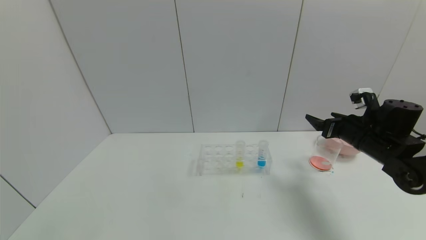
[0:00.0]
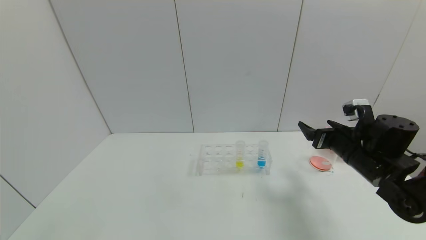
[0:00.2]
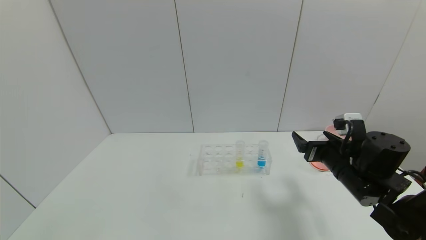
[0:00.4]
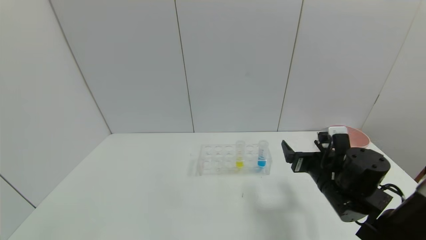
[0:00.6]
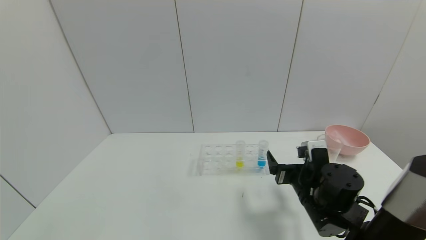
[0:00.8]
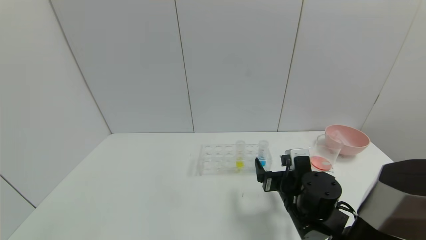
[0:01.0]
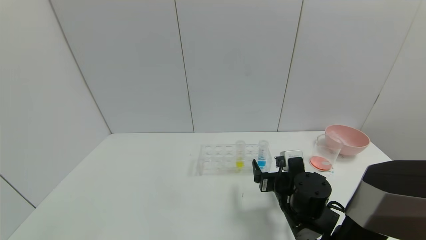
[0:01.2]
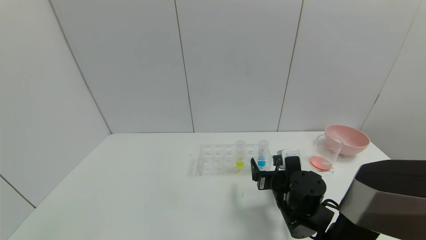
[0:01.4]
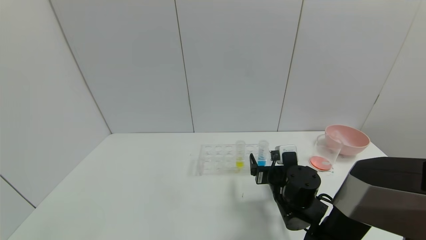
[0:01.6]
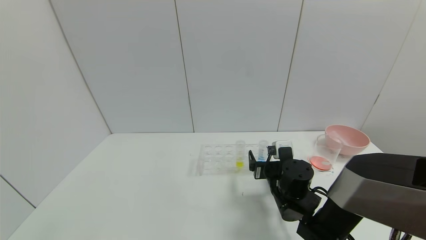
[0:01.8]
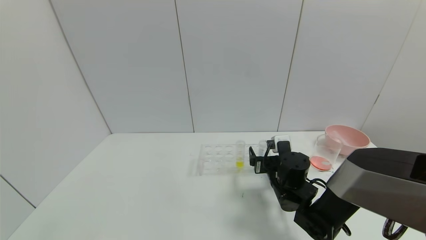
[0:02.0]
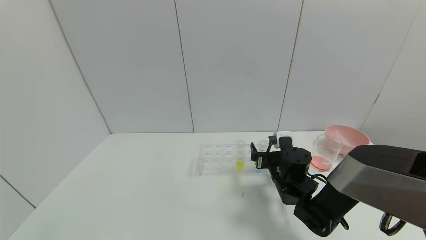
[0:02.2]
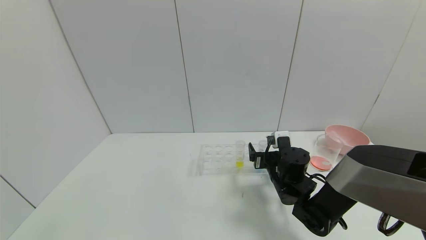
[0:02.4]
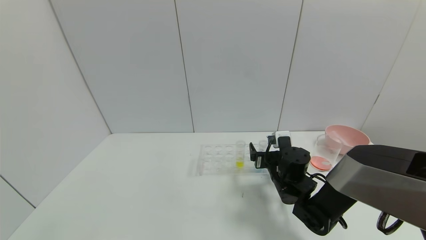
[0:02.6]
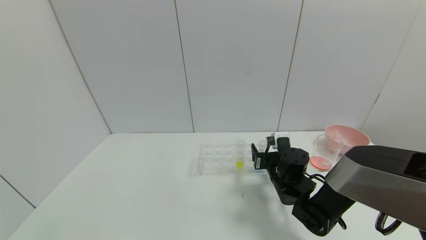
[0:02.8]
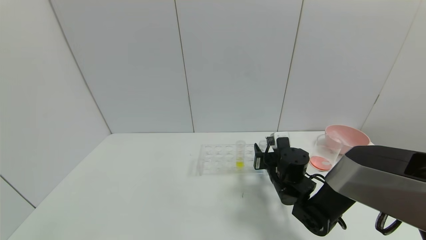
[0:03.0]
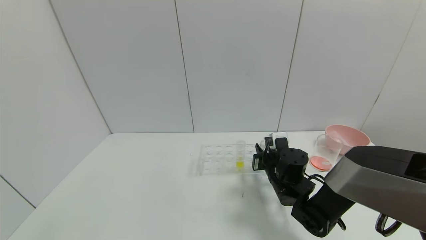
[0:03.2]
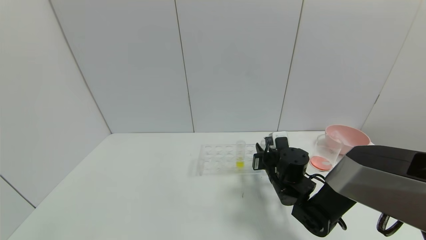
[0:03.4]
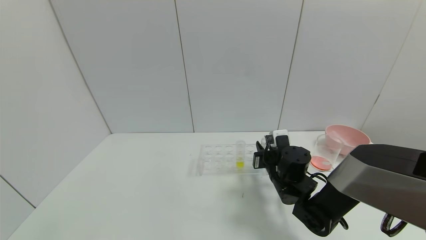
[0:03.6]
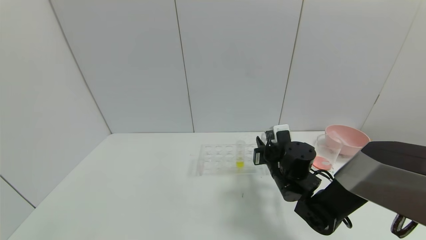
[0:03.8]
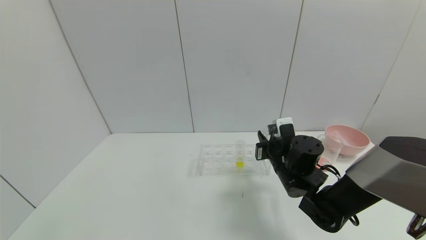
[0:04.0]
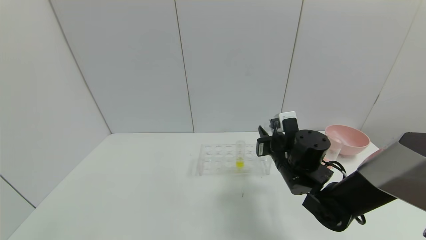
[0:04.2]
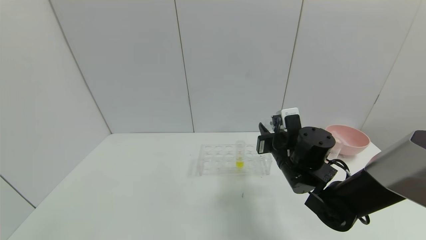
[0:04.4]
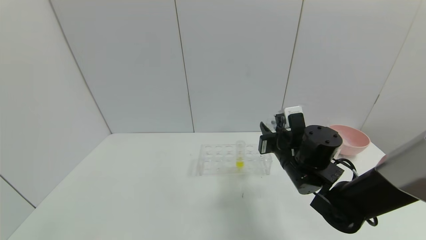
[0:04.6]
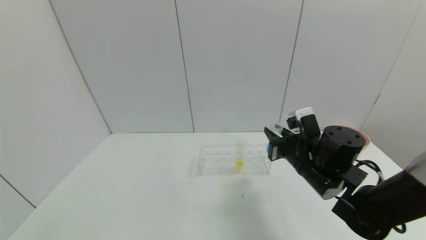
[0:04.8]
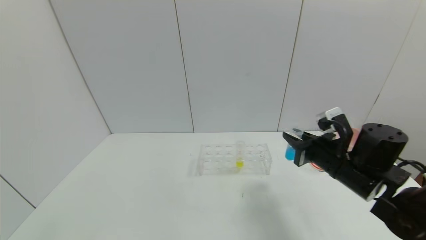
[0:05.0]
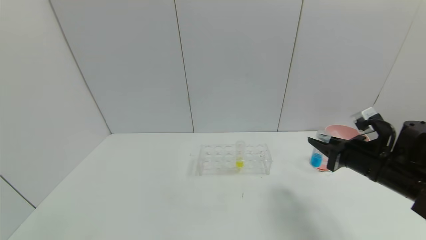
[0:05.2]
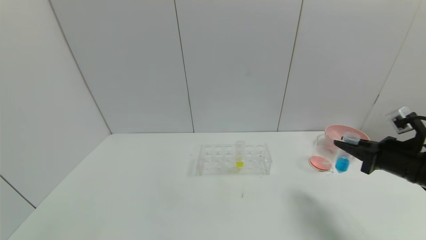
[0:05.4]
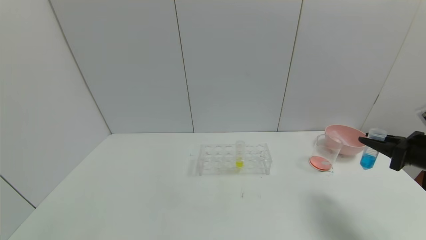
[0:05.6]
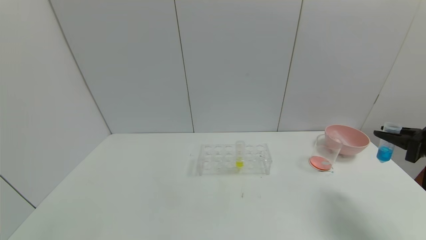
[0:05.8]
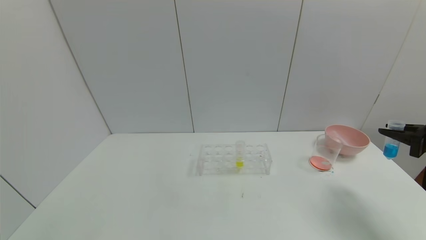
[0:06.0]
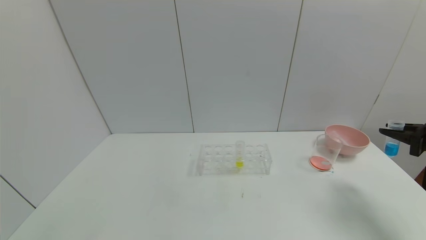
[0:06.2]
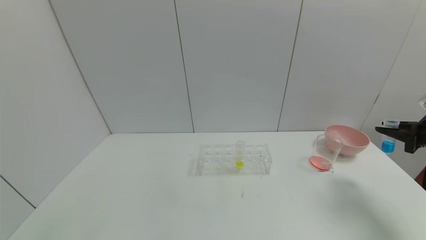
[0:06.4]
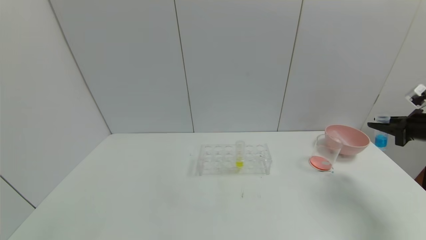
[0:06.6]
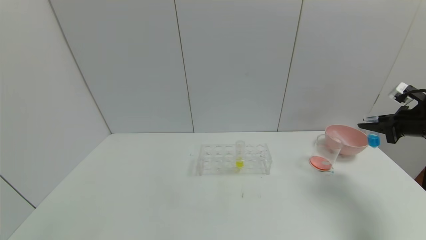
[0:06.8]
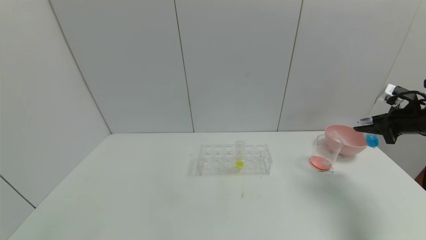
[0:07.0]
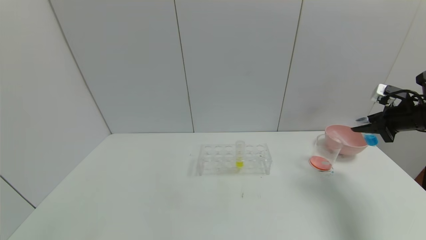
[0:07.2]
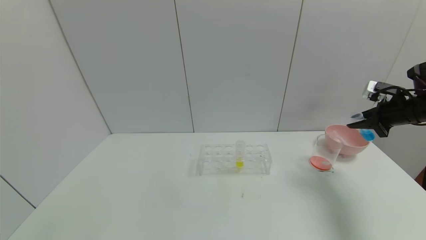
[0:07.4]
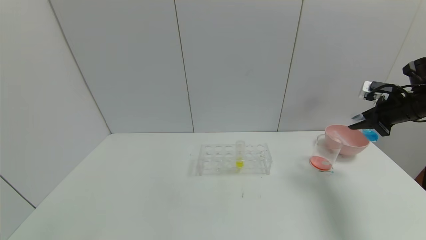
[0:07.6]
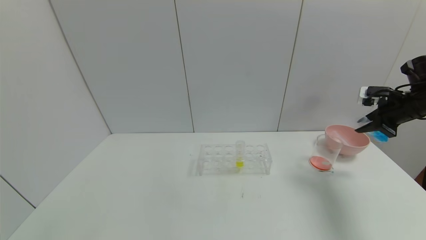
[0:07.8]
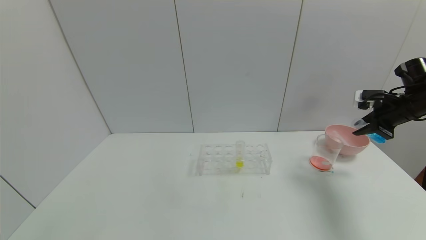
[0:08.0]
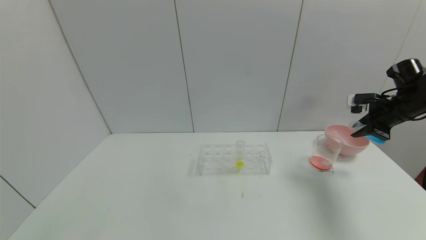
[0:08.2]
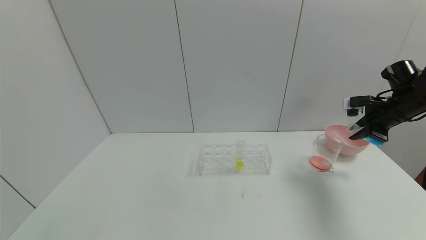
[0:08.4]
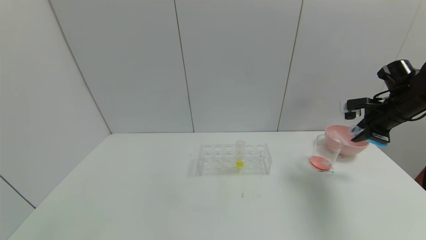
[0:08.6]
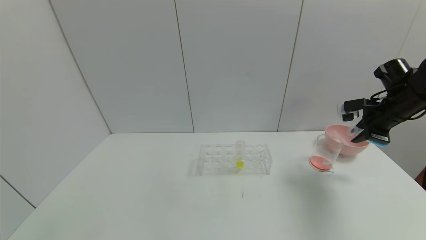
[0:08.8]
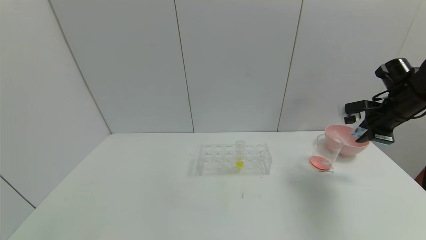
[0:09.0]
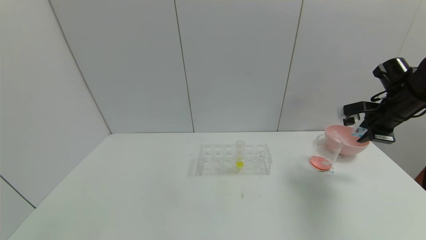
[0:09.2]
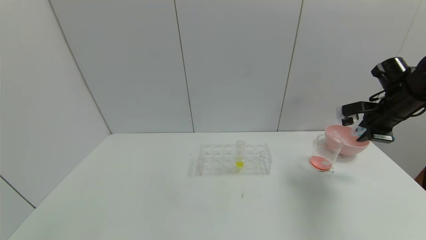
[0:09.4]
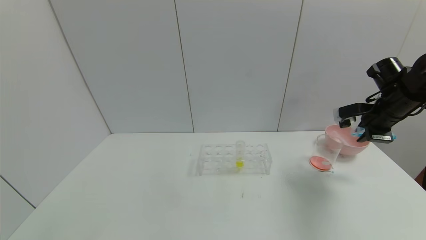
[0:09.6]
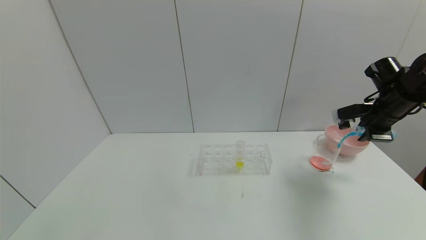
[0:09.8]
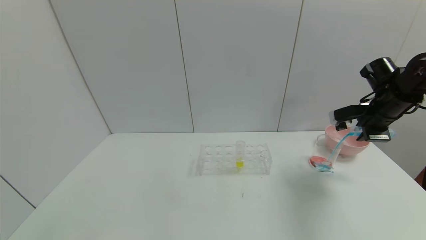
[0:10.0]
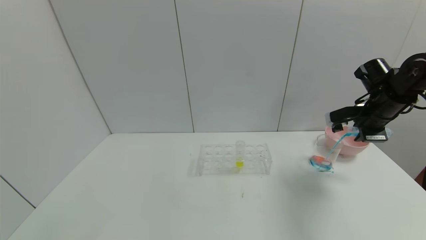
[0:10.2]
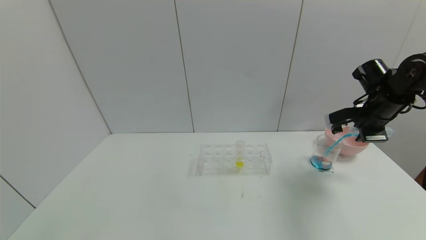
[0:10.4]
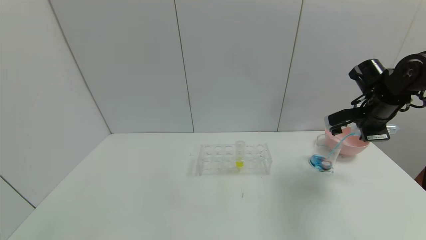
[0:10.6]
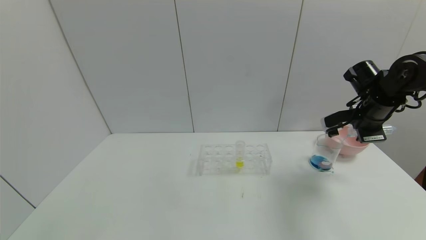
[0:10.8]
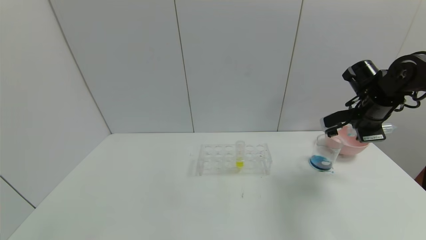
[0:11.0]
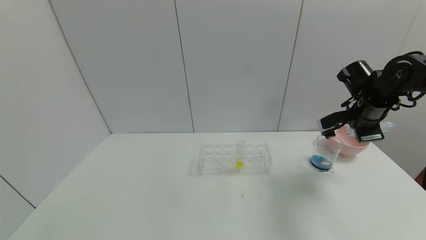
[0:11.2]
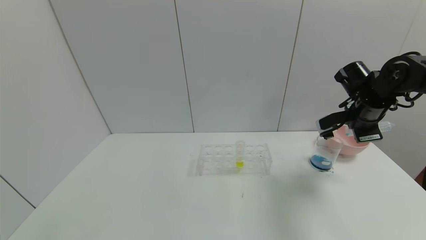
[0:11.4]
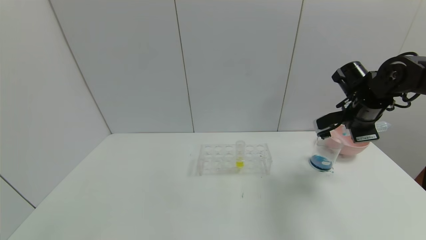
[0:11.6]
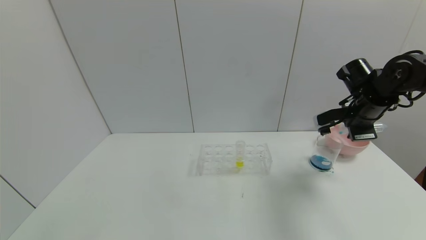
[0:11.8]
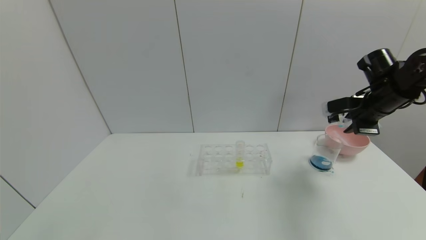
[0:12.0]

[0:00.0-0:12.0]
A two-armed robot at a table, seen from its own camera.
Task of the whole recording: pick up the test tube with red pigment and the test tube with blue pigment by grippers and pour them into the container.
Step, 0:00.0 to 0:03.2: Grasp the blue reagent with the right gripper.
Step, 0:03.4 to 0:11.2: Pour the blue reagent into the graduated cylinder with the right gripper.
0:00.0 to 0:01.6: The right gripper heads to the left and downward, covering some 20 cm.
0:01.6 to 0:03.0: The right gripper goes about 5 cm forward, and closes.
0:03.0 to 0:04.4: The right gripper is displaced upward by some 10 cm.
0:04.4 to 0:06.0: The right gripper heads to the right, covering some 30 cm.
0:06.0 to 0:07.6: The right gripper travels forward by some 10 cm.
0:09.0 to 0:10.4: The grippers move only a little.
0:10.4 to 0:12.0: The grippers move only a little.

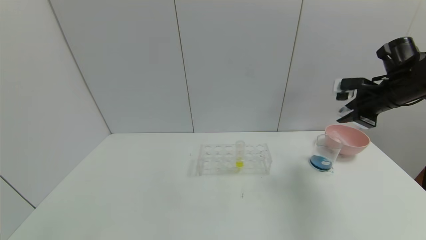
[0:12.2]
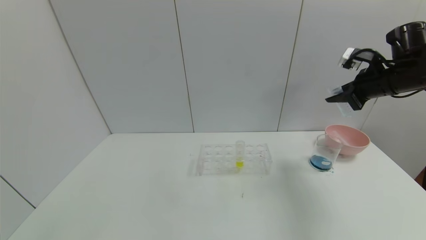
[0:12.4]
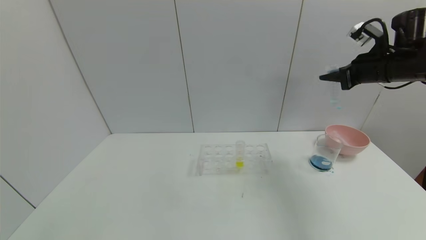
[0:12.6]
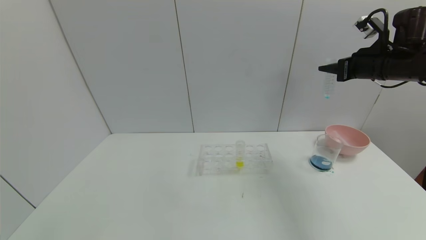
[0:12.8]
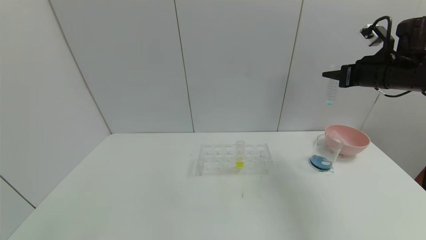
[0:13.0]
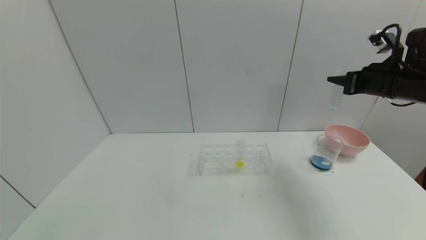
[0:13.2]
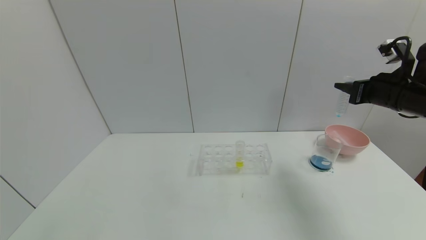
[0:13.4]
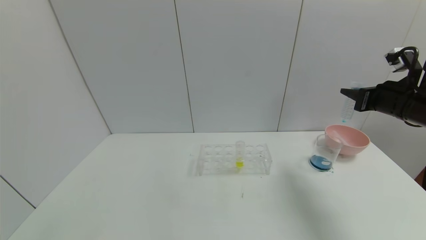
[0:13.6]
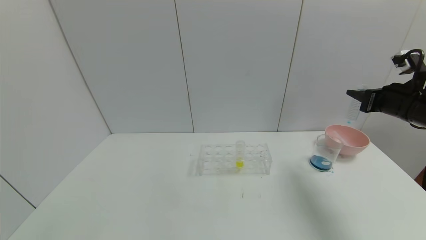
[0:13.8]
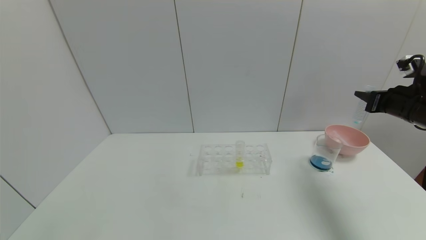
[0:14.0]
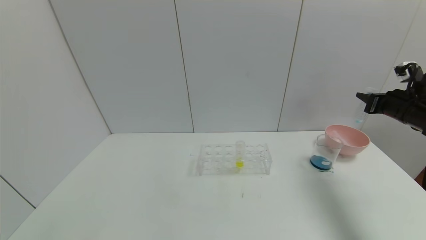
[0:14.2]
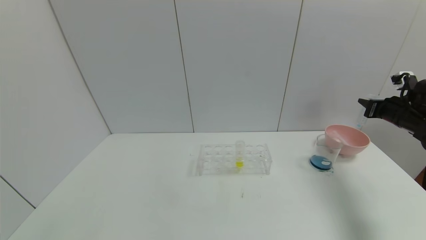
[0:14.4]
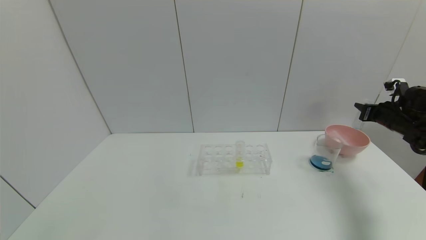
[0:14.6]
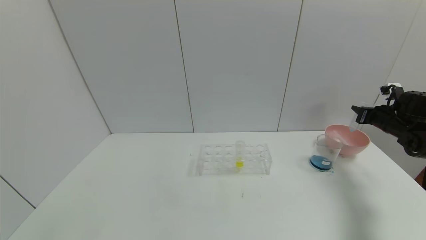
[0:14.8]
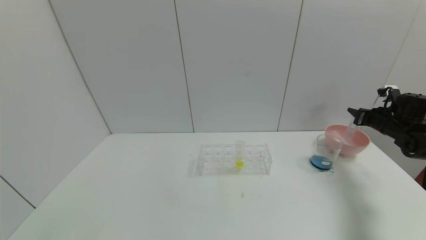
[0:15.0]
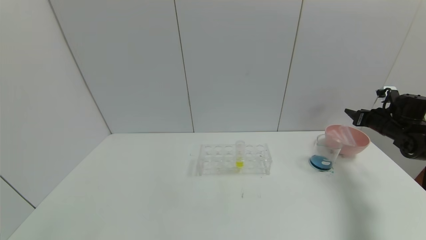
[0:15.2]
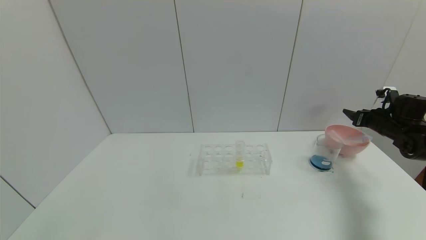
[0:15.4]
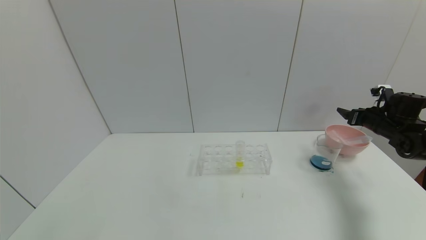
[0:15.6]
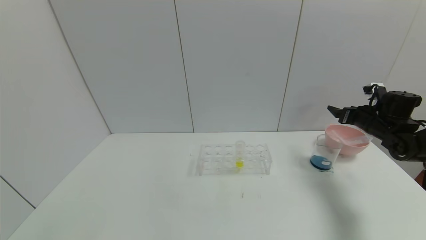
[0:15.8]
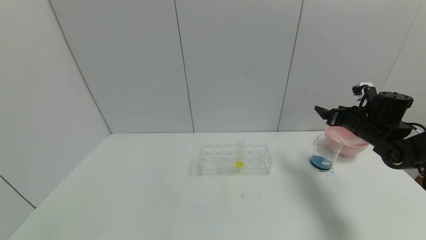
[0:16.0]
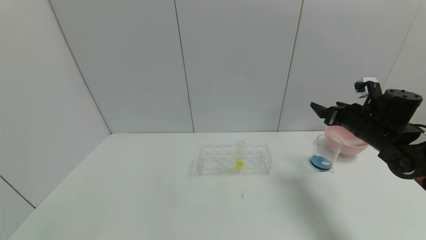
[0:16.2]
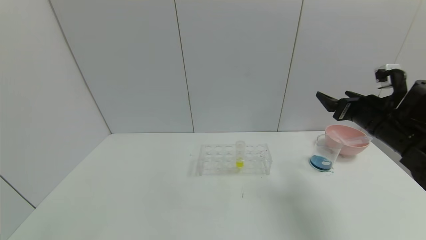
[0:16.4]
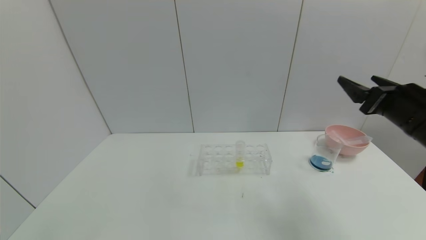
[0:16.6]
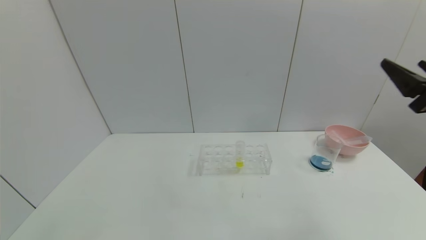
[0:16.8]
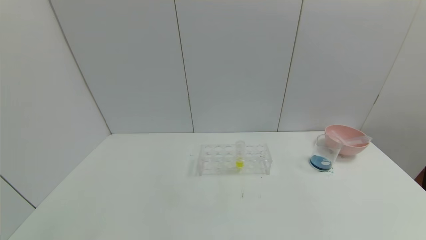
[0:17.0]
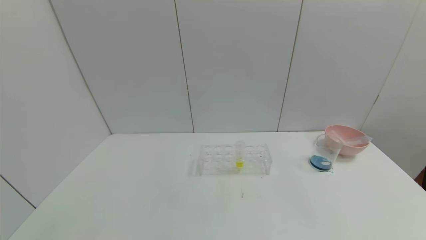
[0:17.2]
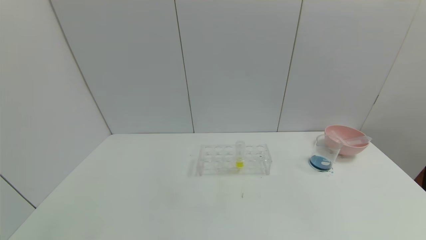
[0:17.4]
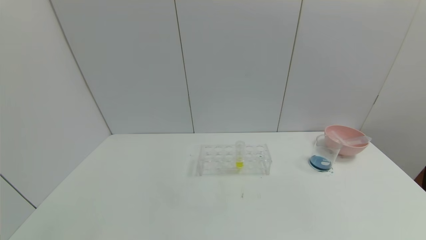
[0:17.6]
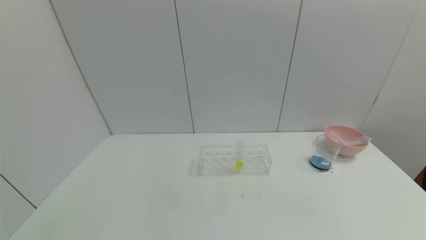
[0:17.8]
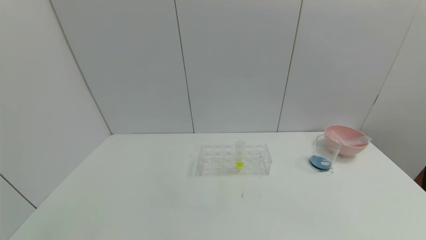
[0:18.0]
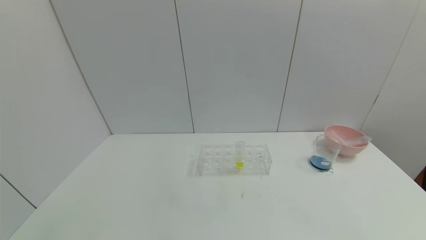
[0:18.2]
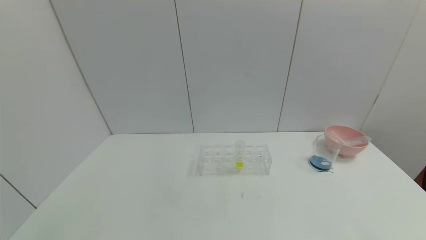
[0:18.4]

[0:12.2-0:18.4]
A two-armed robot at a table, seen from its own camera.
Task of the whole recording: pick up the test tube with red pigment and the test tube with blue pigment by grippers and pour them into the container.
Step, 0:12.2 to 0:15.4: Place the test tube into the bowl with the right gripper.
0:12.2 to 0:13.8: The right gripper moves about 5 cm.
0:13.8 to 0:15.4: The right gripper is displaced downward, forward and to the right by roughly 15 cm, and opens its fingers.
0:15.4 to 0:16.8: The right gripper moves backward, upward and to the left, some 30 cm.
0:16.8 to 0:18.4: The right gripper goes approximately 30 cm backward and downward.
